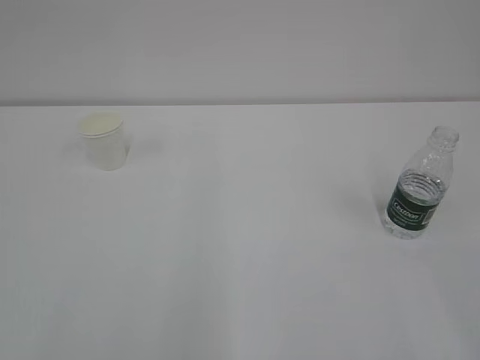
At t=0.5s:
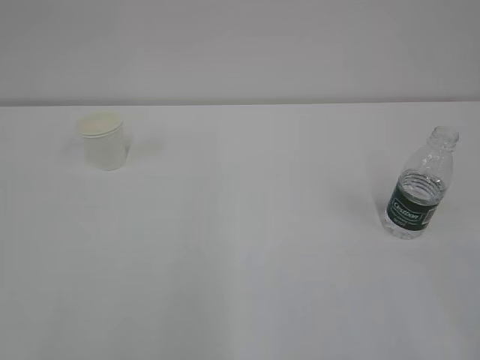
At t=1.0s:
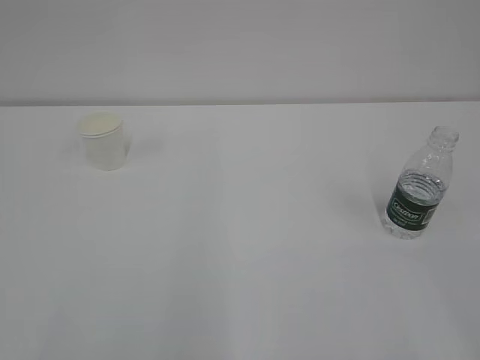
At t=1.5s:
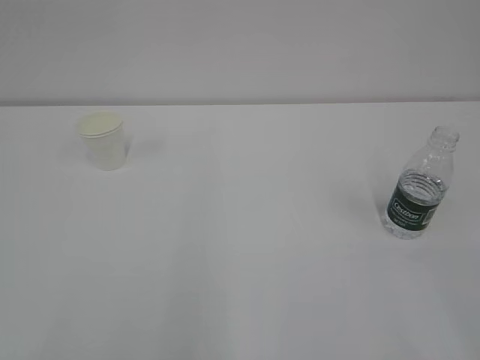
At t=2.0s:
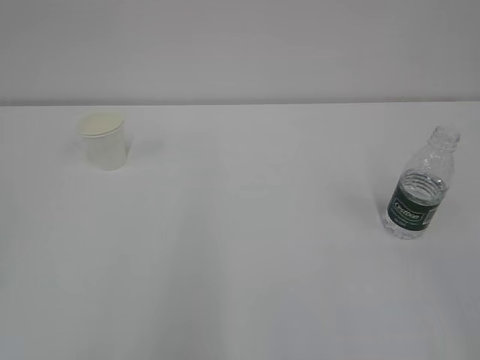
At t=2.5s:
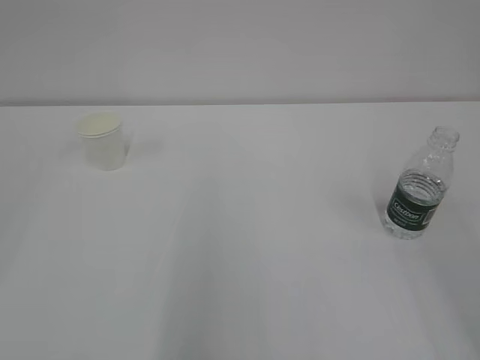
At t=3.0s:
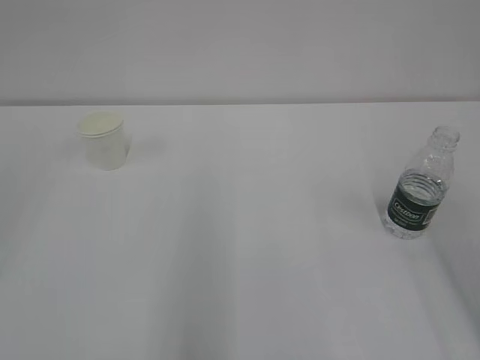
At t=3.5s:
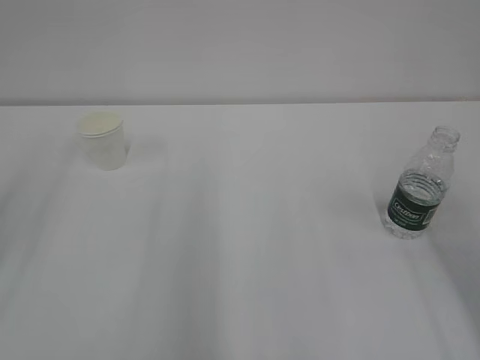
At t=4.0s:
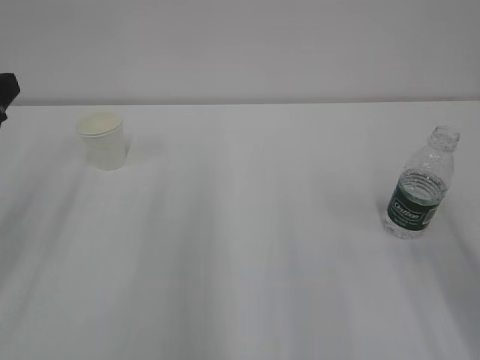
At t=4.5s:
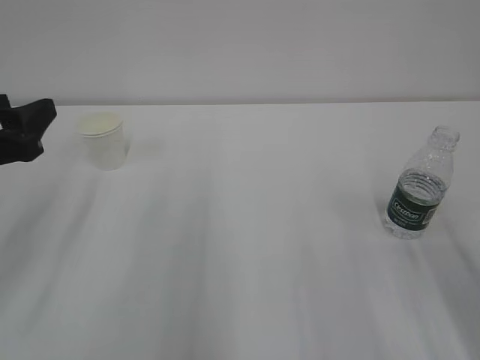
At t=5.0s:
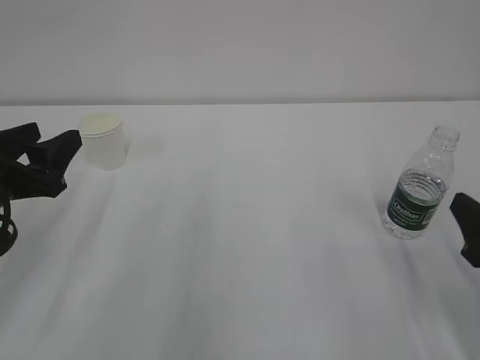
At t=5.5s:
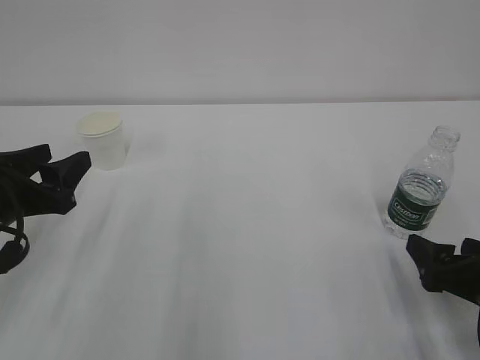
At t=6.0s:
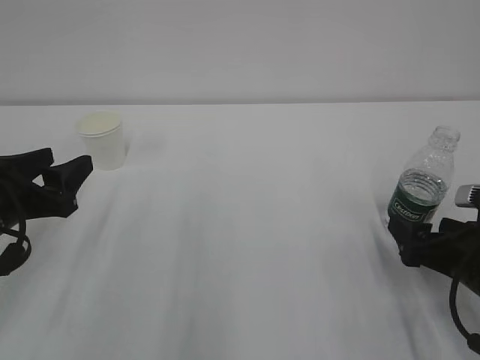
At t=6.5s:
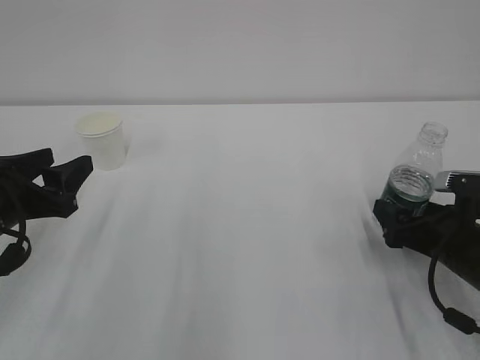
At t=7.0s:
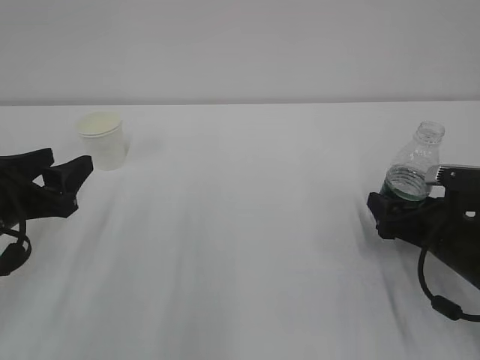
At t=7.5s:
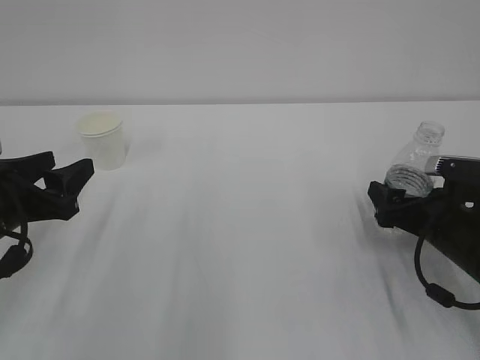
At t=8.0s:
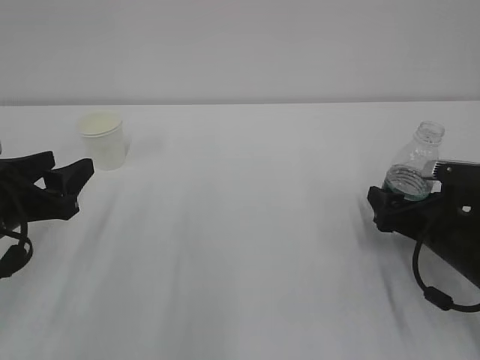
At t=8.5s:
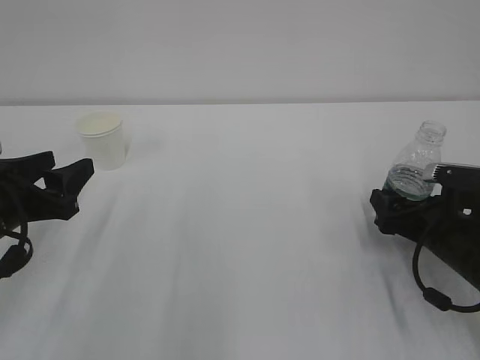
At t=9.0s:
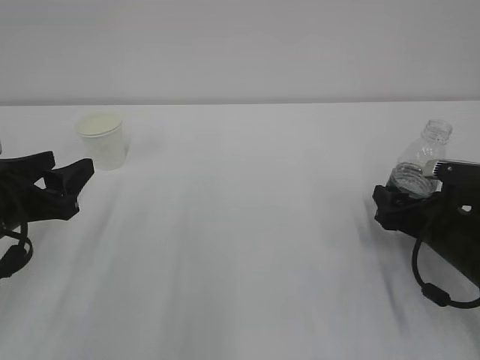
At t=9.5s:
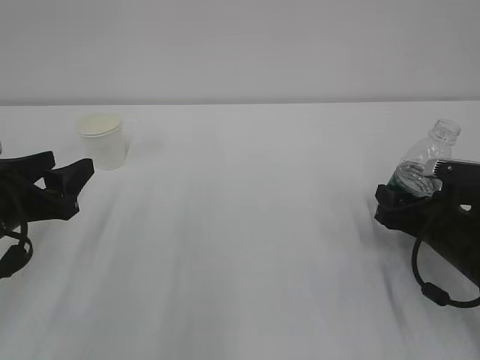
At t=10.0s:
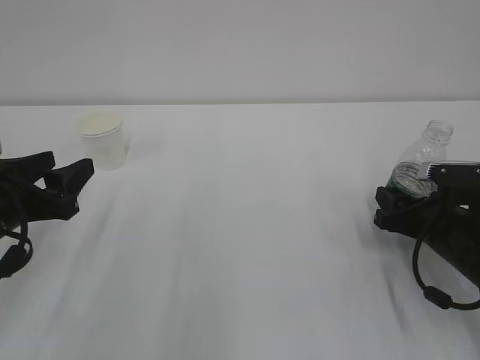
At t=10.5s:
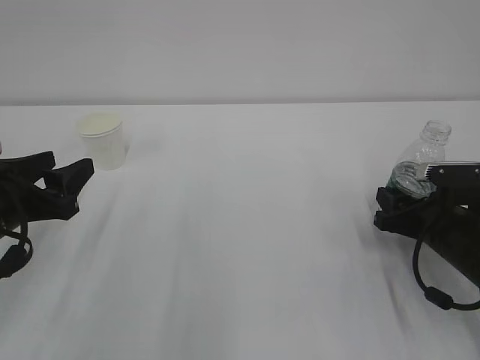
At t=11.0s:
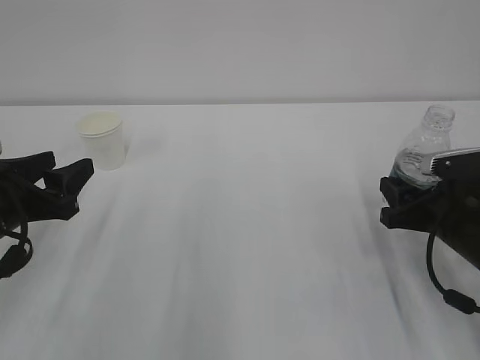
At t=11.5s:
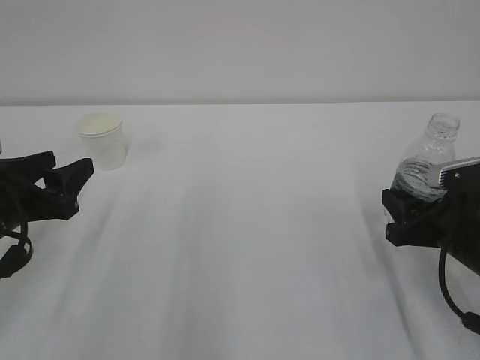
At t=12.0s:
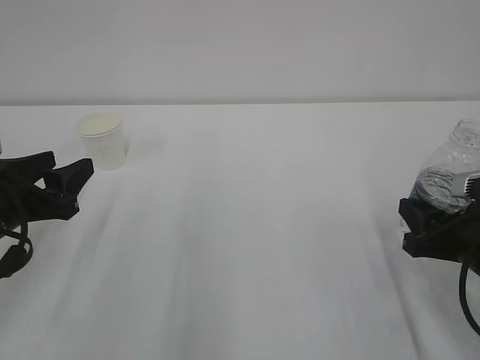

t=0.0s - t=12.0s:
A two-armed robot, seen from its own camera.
t=4.0s - t=6.0s: The left gripper heads downward, covering some 10 cm. The right gripper is displaced downward by about 20 cm, and opens its fingers.
t=6.0s - t=8.0s: The right gripper goes some 5 cm forward.
t=8.0s - t=10.0s: The right gripper closes.
t=10.0s - t=12.0s: The right gripper moves backward, roughly 5 cm.

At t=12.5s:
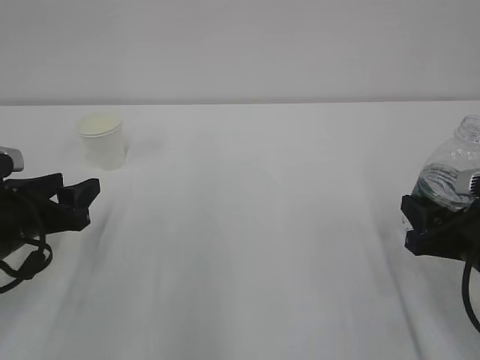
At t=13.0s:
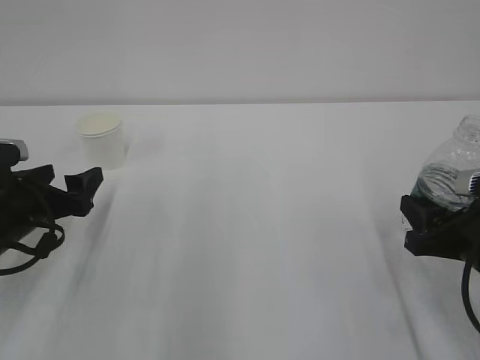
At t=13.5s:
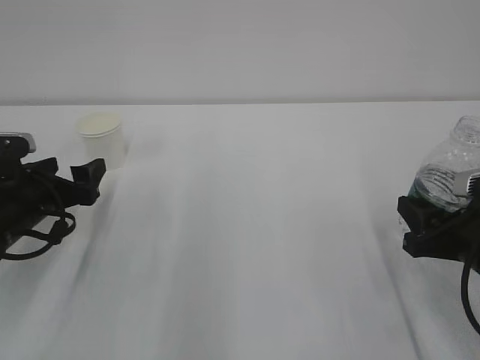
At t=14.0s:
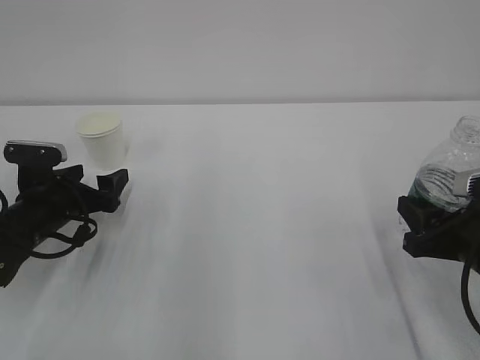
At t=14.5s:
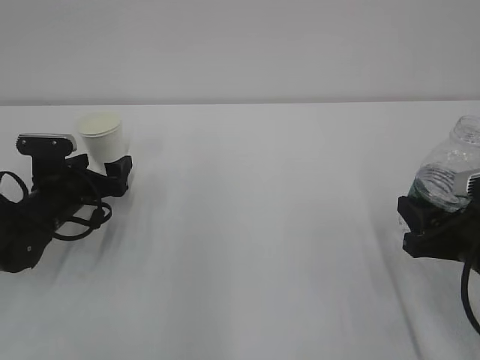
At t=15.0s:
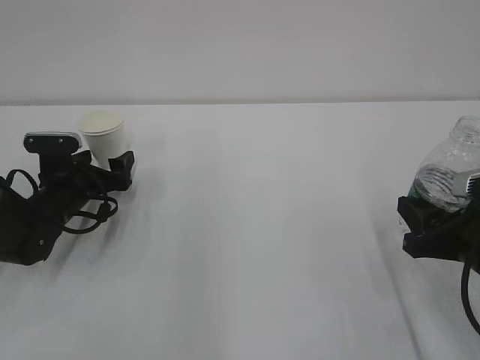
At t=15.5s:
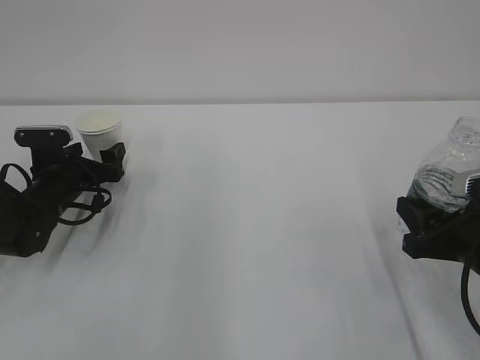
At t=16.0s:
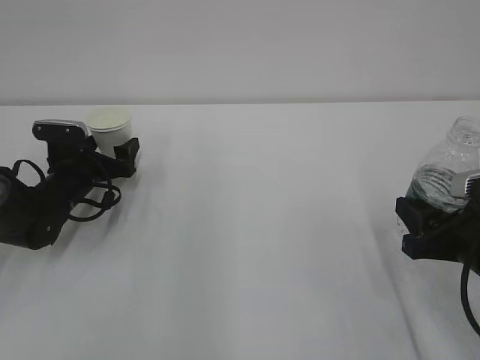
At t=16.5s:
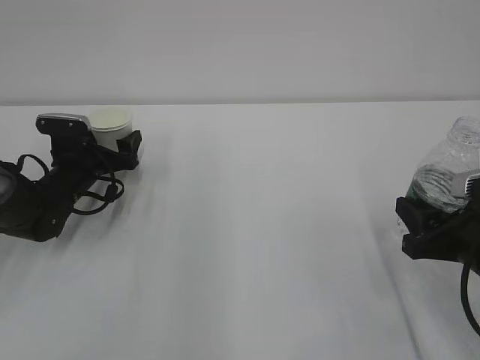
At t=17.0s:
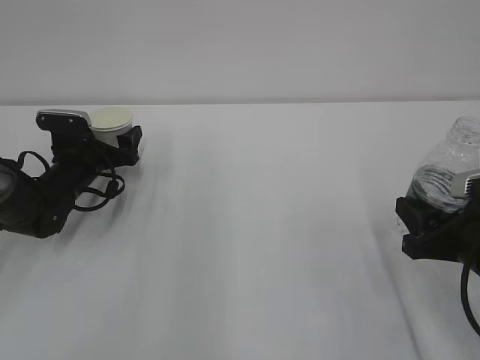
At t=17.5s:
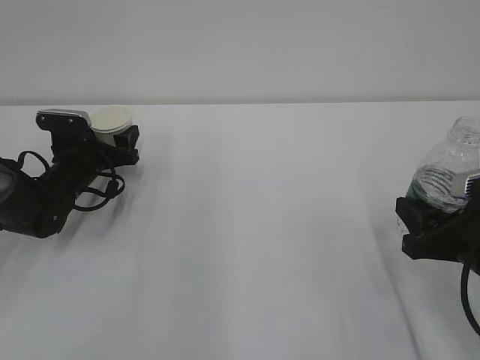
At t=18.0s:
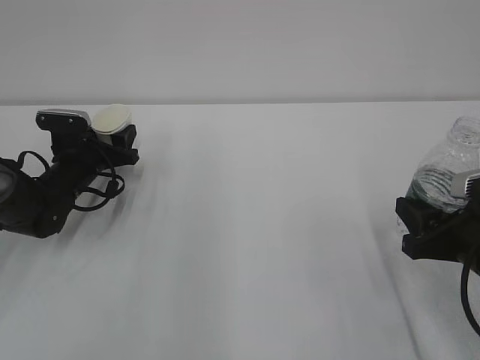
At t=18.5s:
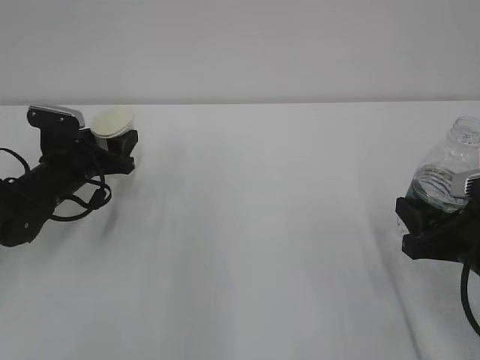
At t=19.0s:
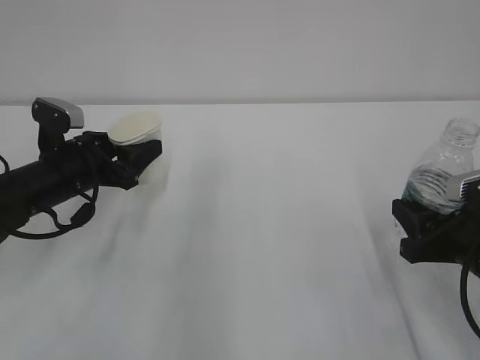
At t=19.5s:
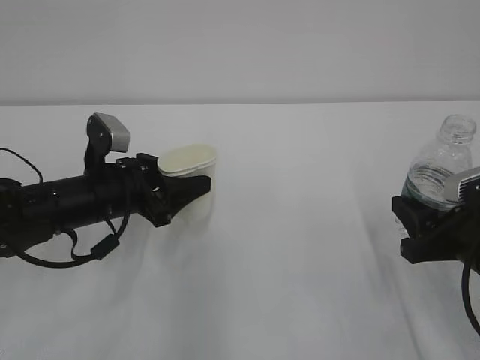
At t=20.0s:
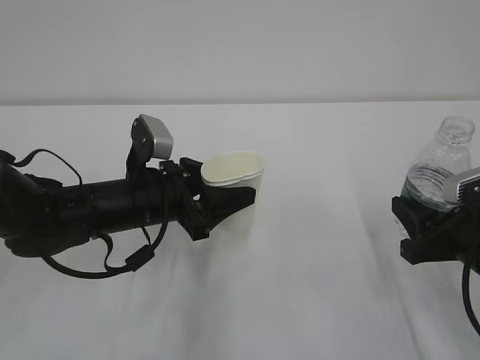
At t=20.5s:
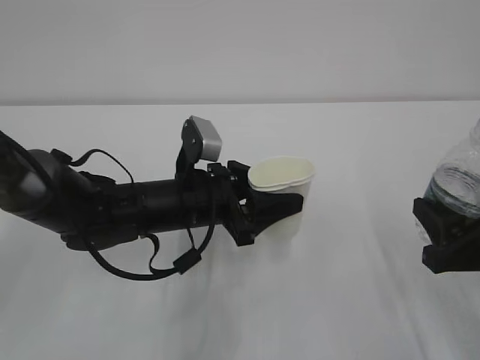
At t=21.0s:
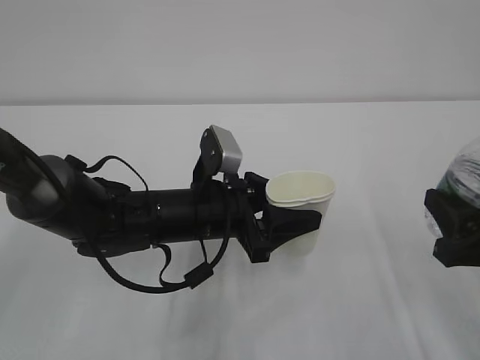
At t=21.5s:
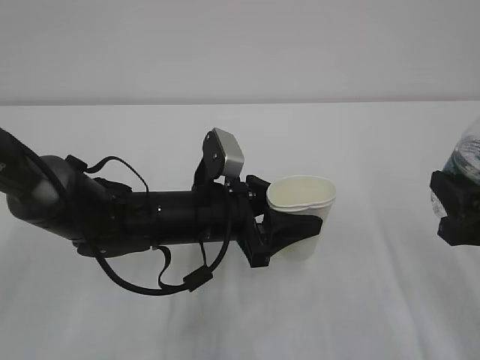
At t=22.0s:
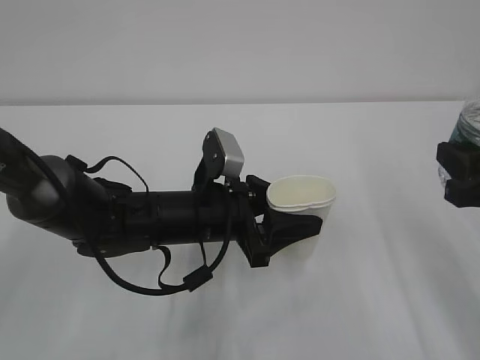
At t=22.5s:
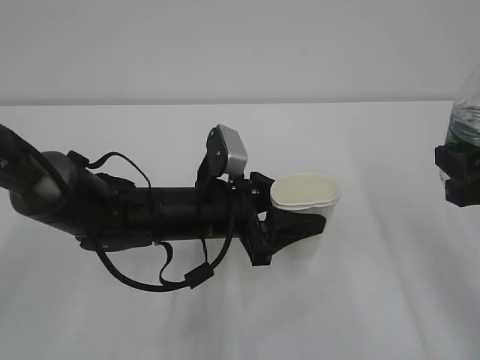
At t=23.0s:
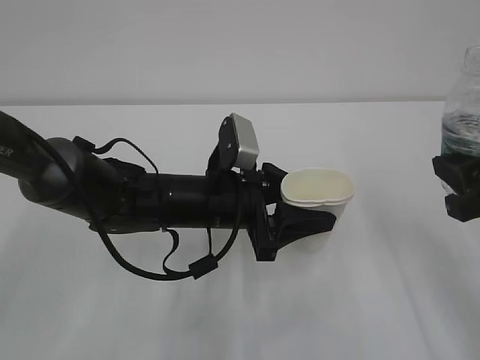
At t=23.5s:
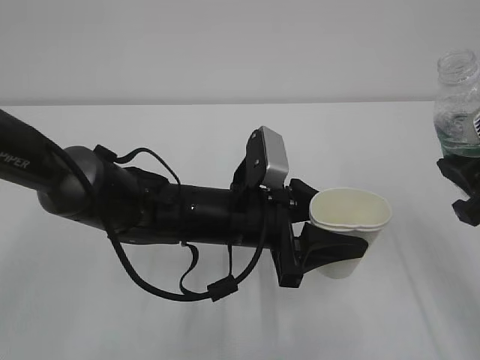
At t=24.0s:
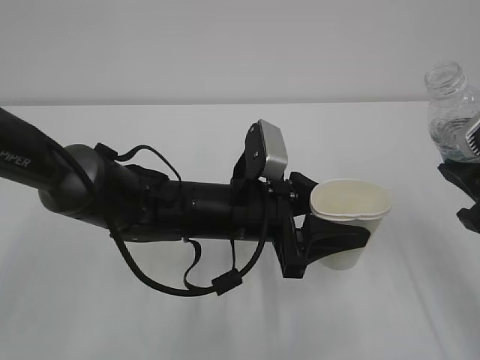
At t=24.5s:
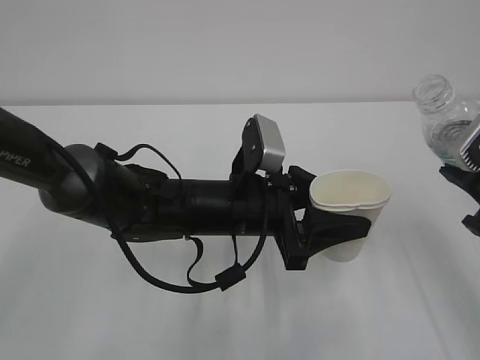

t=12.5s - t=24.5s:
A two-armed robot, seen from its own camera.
t=12.5s - t=14.5s: The left gripper shifts roughly 10 cm forward and downward, and opens its fingers.
t=14.5s - t=16.5s: The left gripper heads forward, covering approximately 5 cm.
t=16.5s - t=18.5s: The left gripper closes its fingers.
t=18.5s - t=20.5s: The left gripper moves to the right and backward, approximately 20 cm.
t=20.5s - t=22.5s: The right gripper shifts some 10 cm upward.

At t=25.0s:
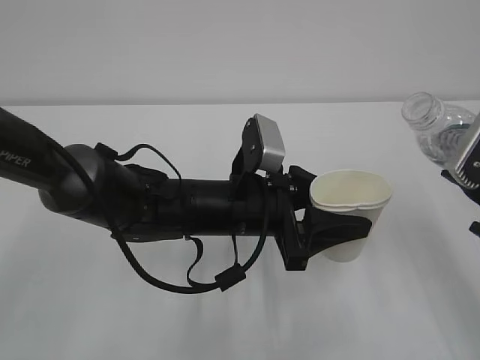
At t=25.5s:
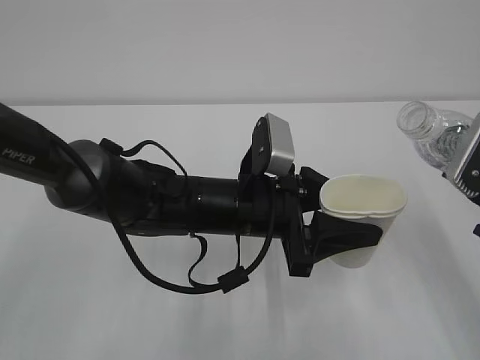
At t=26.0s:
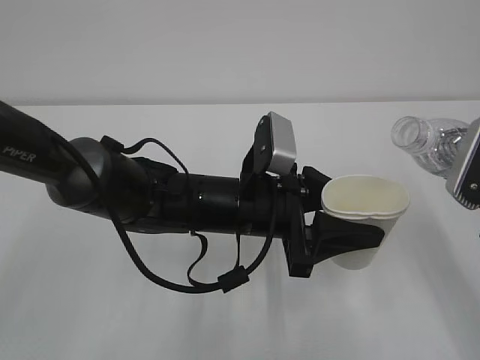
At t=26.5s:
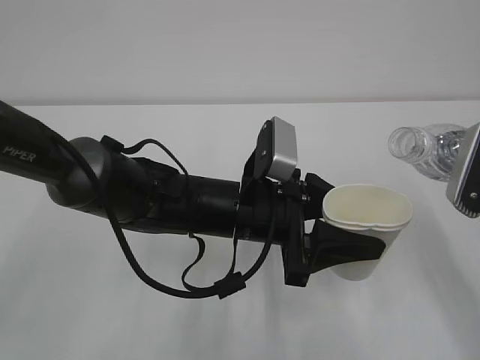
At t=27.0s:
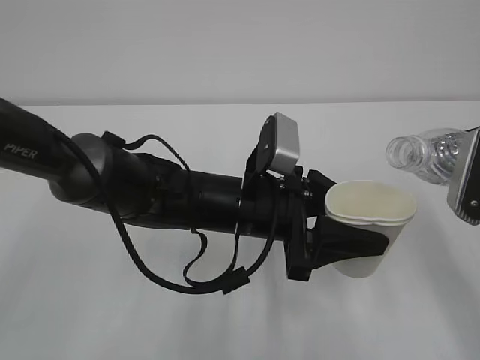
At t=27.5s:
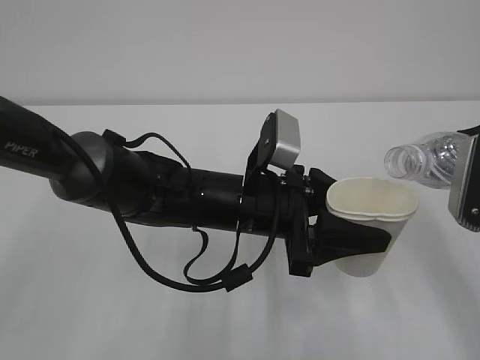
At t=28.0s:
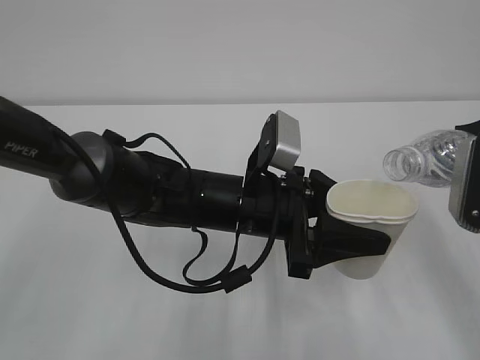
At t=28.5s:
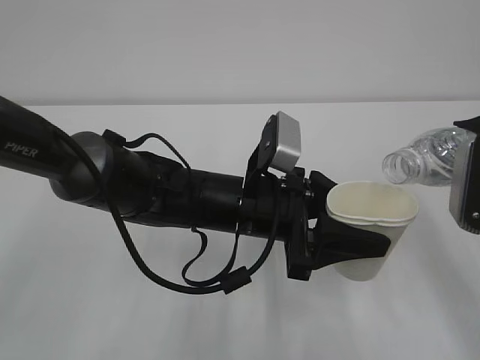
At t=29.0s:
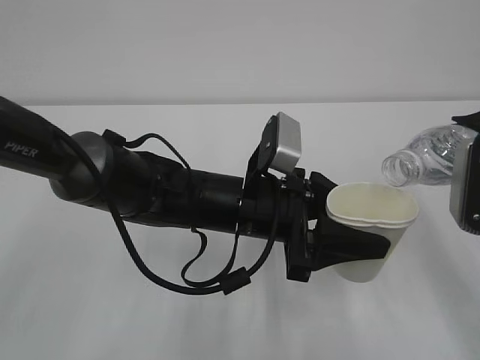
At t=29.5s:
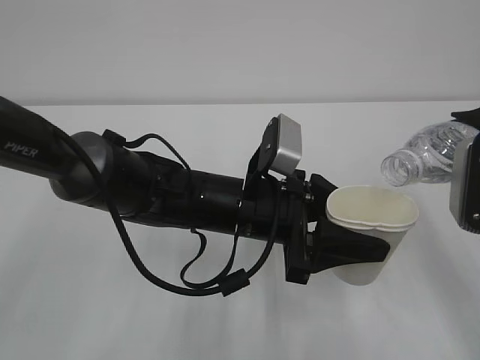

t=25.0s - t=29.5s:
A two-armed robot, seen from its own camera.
t=25.0s - t=27.0s: The grippers make only small movements.
t=27.0s - t=29.5s: The grippers make only small movements.
